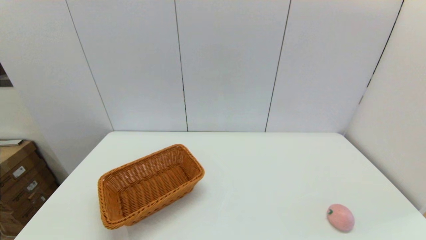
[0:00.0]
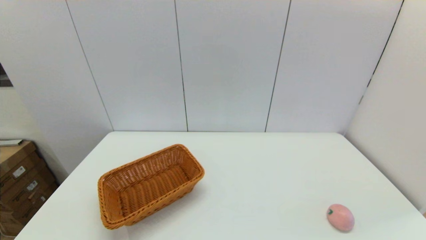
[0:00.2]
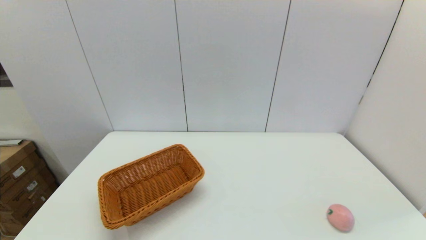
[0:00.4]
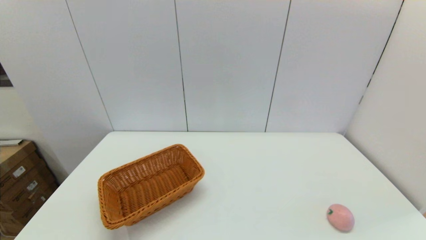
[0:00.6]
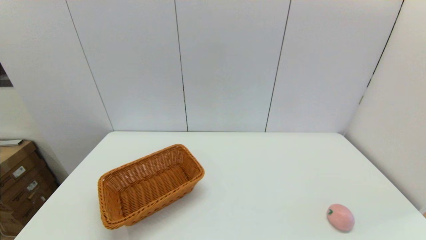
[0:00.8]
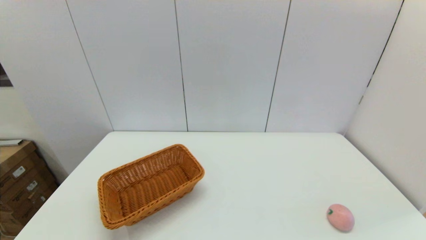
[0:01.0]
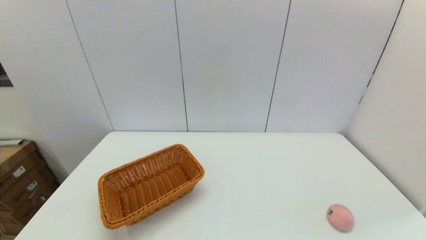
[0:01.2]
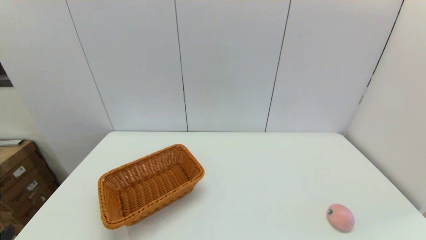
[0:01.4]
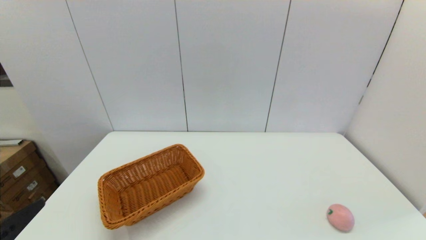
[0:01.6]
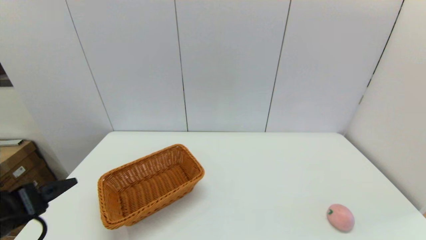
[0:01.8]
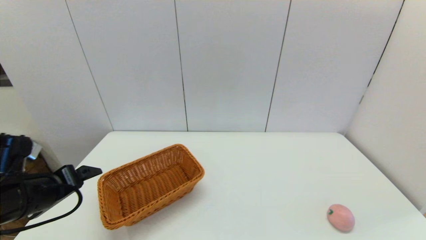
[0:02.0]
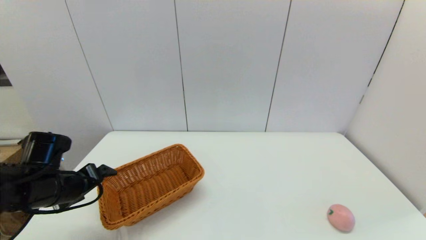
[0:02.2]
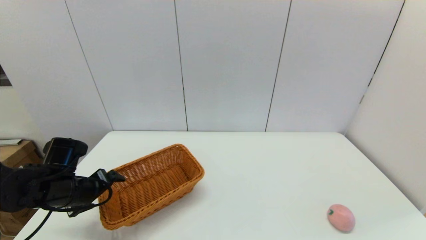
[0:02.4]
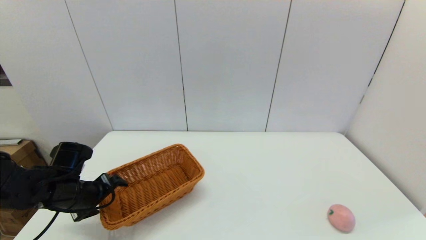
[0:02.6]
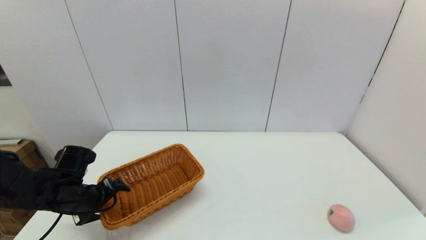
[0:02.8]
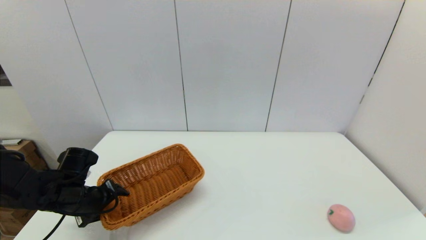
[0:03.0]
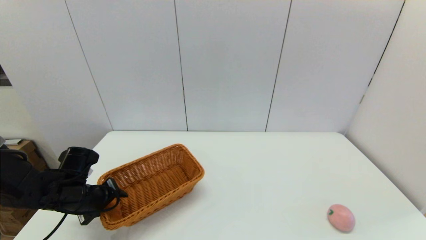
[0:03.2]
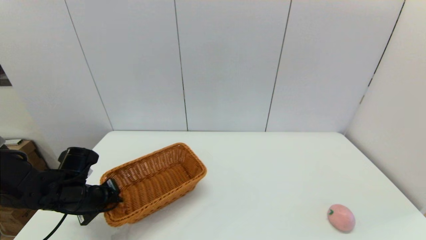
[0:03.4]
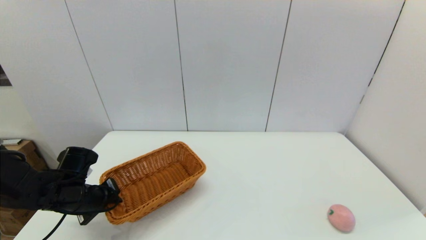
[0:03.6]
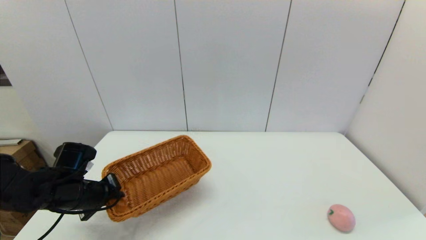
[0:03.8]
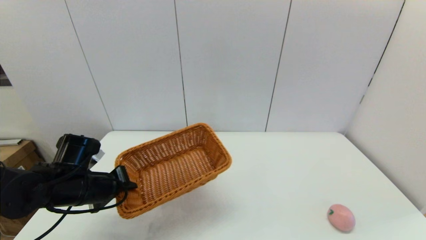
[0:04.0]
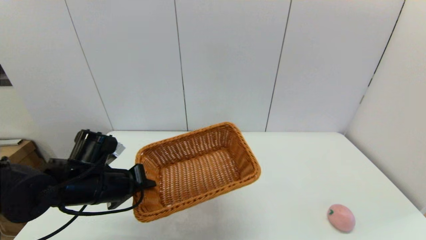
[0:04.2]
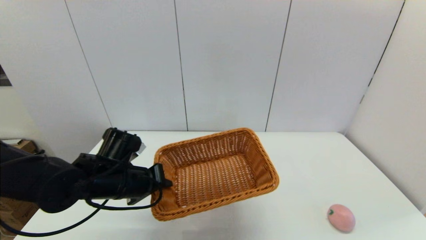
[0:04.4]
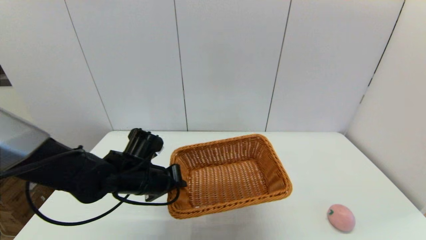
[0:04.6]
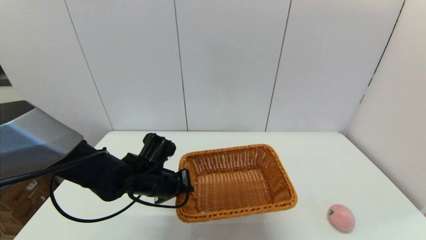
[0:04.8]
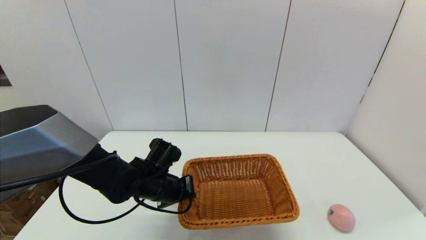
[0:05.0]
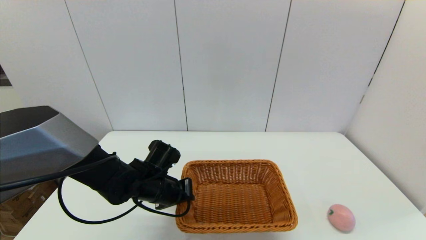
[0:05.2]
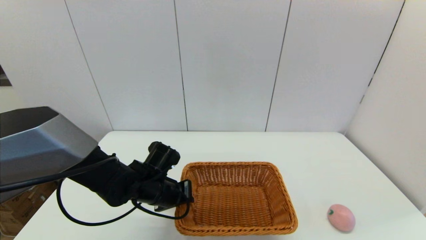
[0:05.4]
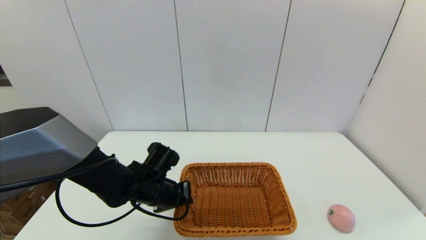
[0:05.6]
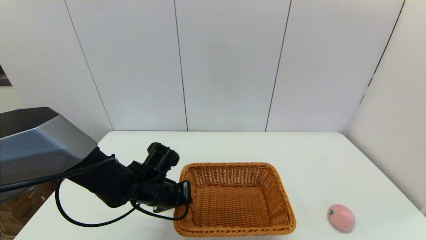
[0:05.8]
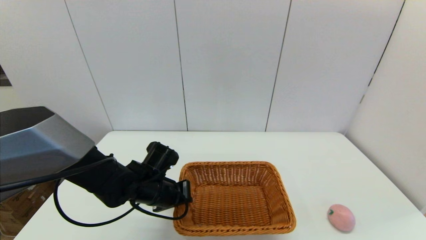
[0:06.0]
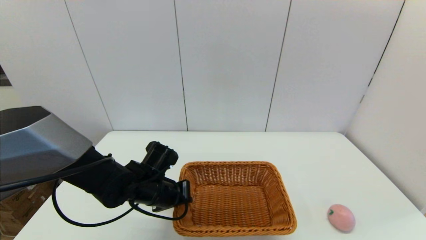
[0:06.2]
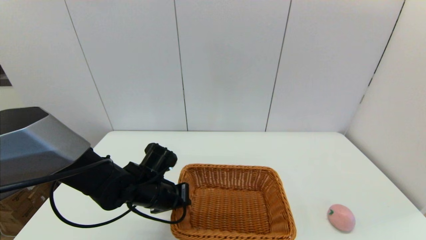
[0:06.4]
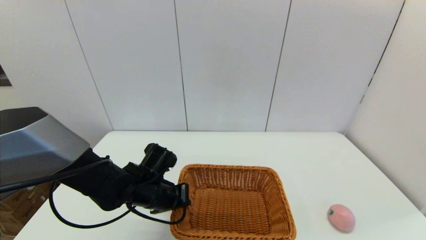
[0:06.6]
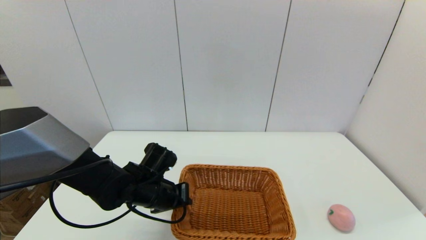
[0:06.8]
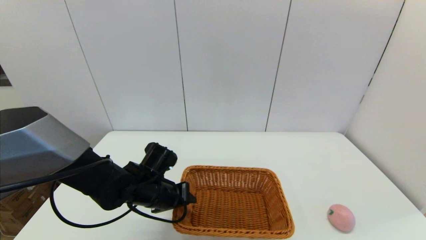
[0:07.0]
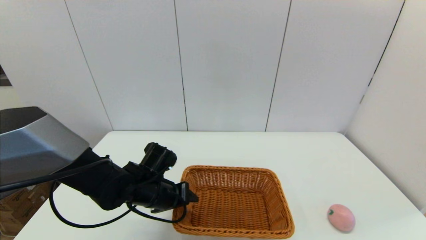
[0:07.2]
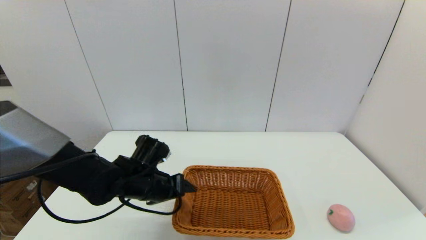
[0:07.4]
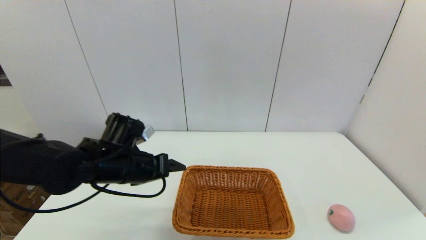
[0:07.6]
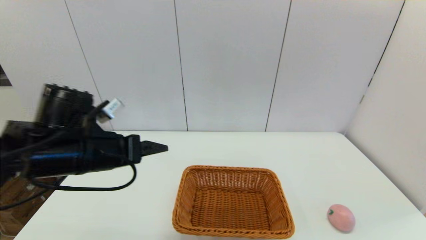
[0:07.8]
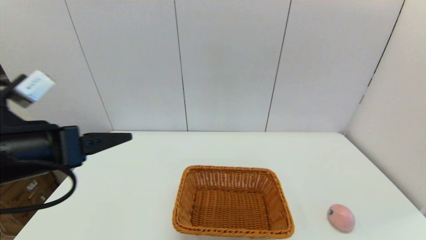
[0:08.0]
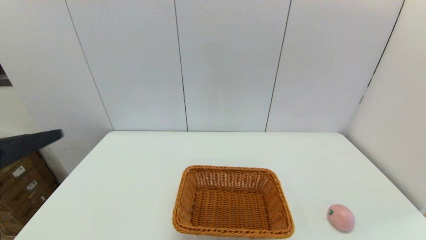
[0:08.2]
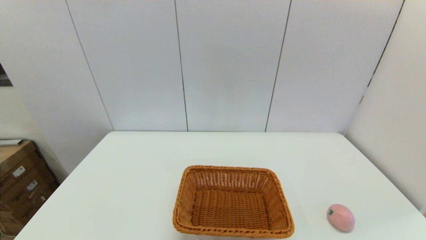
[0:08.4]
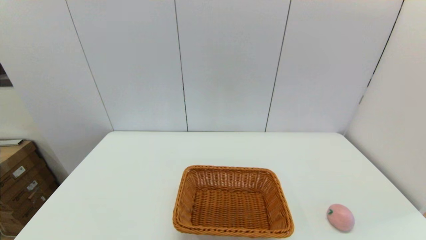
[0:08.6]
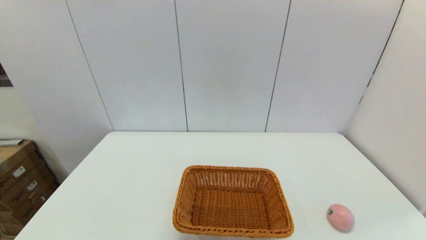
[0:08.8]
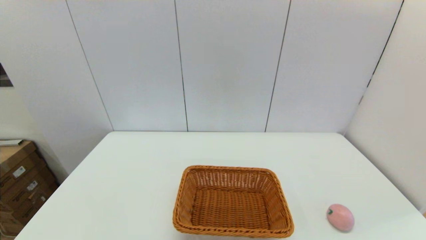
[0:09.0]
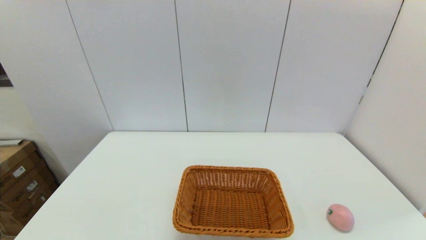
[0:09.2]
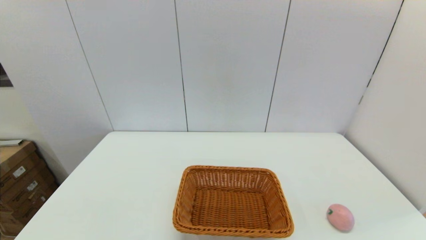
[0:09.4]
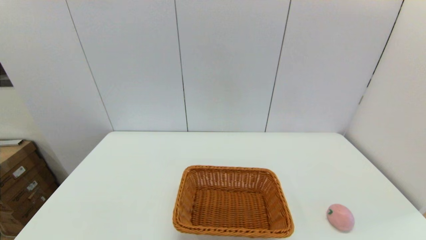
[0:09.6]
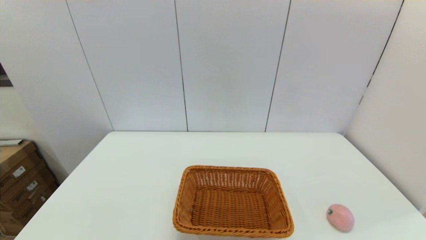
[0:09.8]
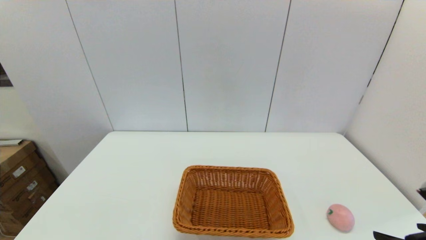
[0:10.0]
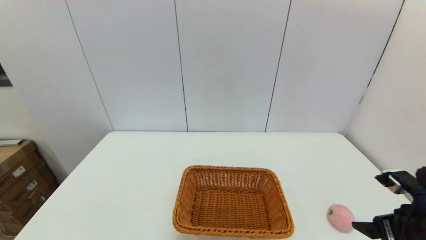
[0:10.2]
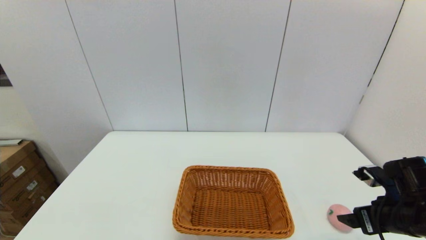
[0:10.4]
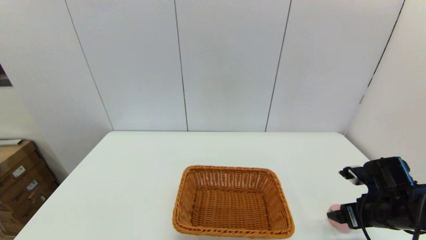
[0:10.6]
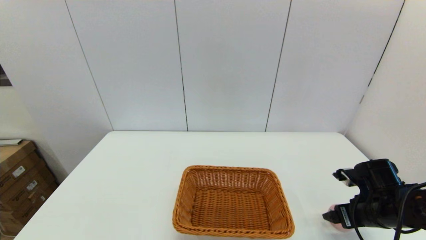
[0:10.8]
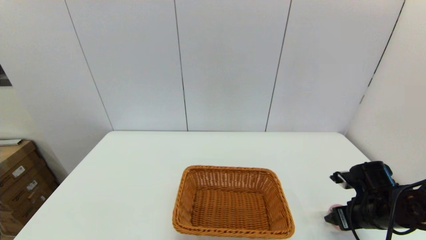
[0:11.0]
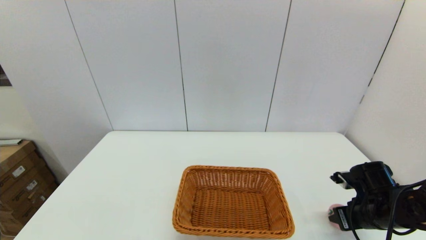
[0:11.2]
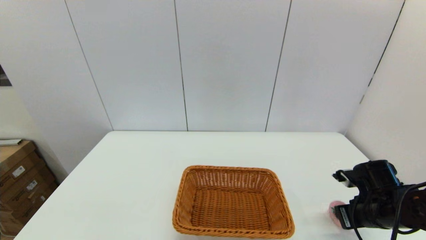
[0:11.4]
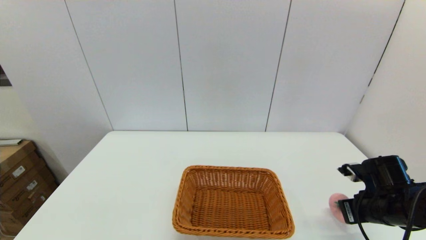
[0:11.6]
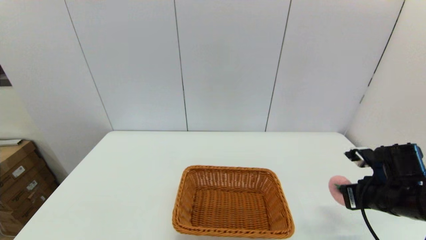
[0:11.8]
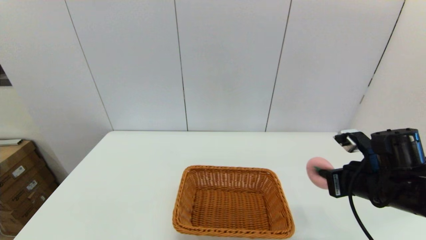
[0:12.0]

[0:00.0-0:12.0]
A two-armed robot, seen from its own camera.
Step, 0:00.0 to 0:03.4: Grasp the light basket with the left gripper.
Step, 0:03.6 to 0:07.2: Place the light basket on the middle of the table with the left gripper.
Step, 0:07.4 to 0:11.4: Grasp the peach with the right gripper.
0:01.6 to 0:03.0: The left gripper heads forward and downward, covering approximately 25 cm.
0:03.0 to 0:04.4: The left gripper travels to the right and upward by some 15 cm, and closes.
0:04.4 to 0:06.0: The left gripper moves downward, roughly 5 cm.
0:06.0 to 0:07.6: The left gripper heads upward, covering roughly 10 cm, and opens up.
0:07.6 to 0:09.0: The left gripper travels backward and to the left by about 35 cm.
0:09.0 to 0:10.4: The right gripper travels forward by some 20 cm.
0:10.4 to 0:12.0: The right gripper goes about 10 cm to the left and upward, and closes.

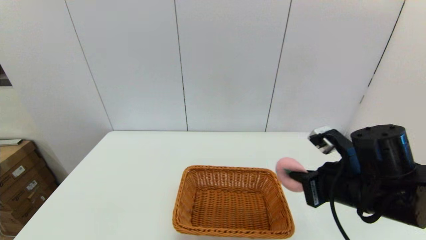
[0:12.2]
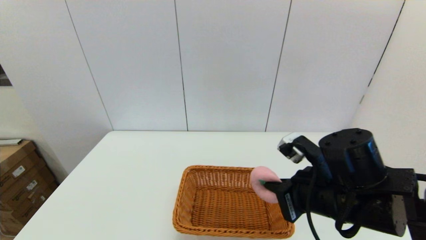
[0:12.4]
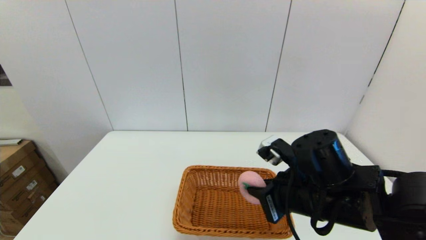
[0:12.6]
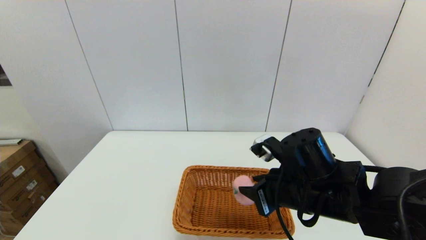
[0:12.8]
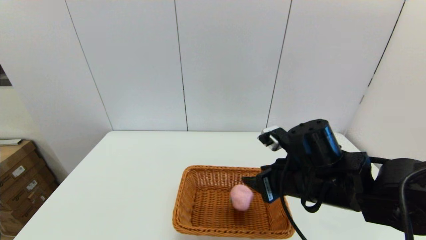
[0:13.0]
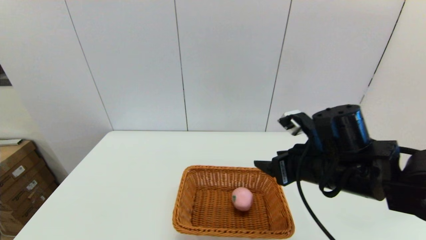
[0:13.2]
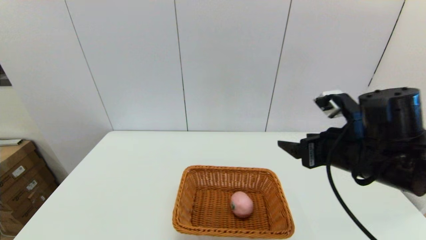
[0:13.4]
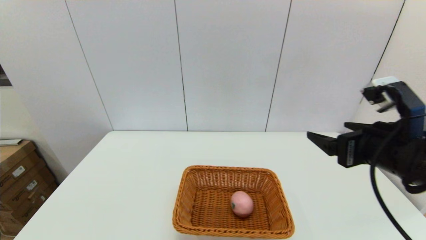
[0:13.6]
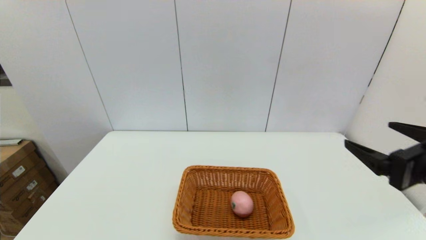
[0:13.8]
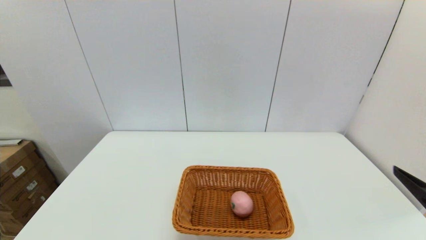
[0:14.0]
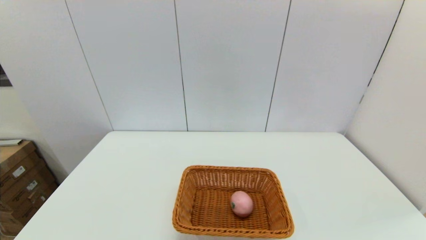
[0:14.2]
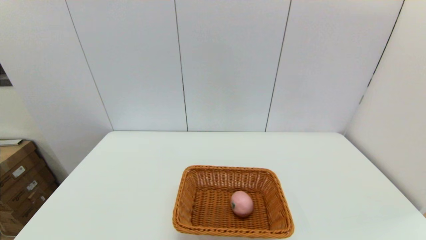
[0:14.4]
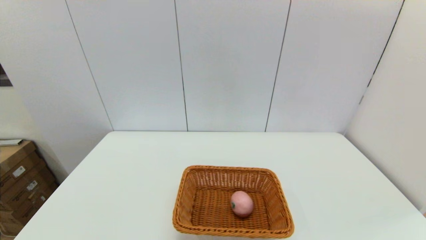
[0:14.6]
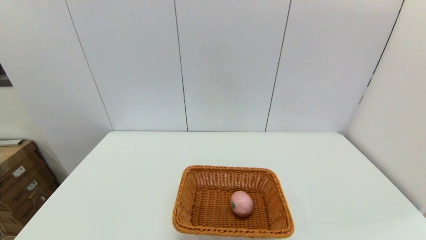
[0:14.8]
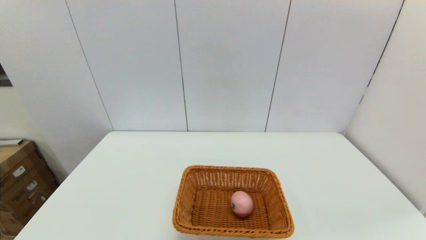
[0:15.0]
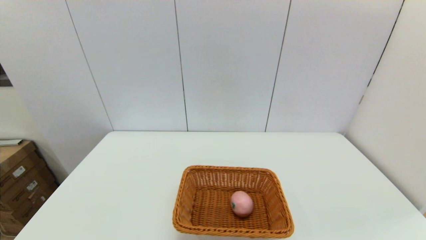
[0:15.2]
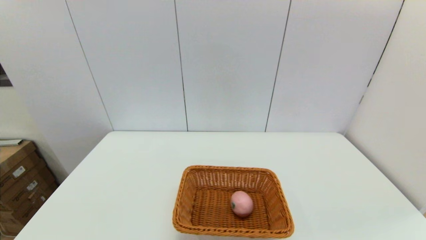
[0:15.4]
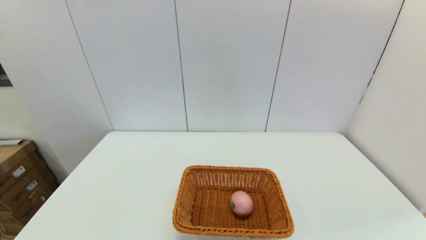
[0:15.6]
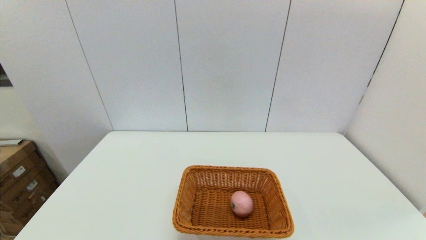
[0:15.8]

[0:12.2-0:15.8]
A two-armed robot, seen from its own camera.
Step, 0:12.2 to 0:13.0: Place the peach into the light basket with the right gripper.
0:12.2 to 0:14.0: The right gripper travels backward, to the right and upward by approximately 15 cm, and opens up.
